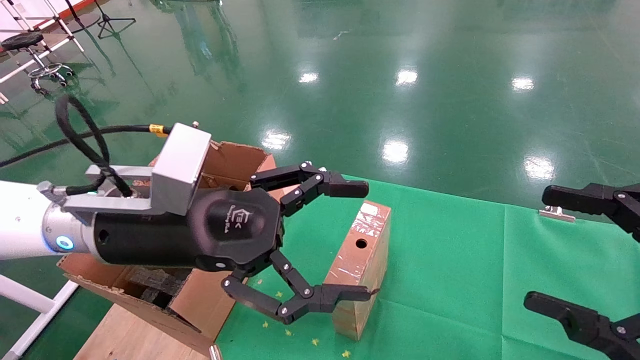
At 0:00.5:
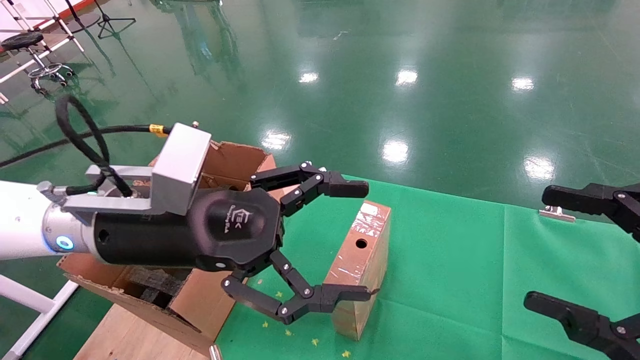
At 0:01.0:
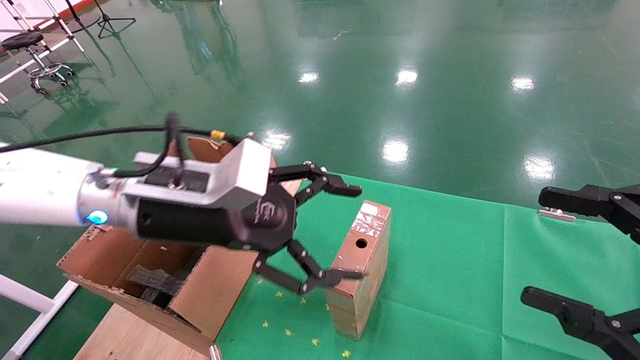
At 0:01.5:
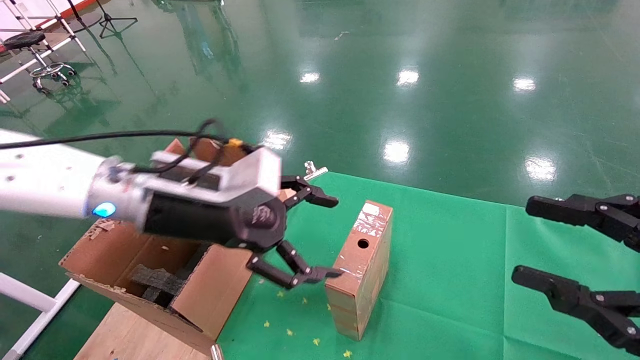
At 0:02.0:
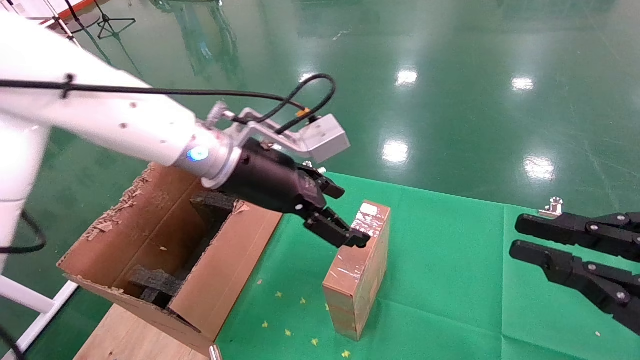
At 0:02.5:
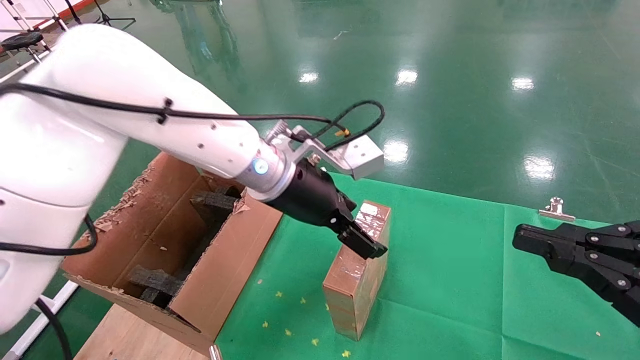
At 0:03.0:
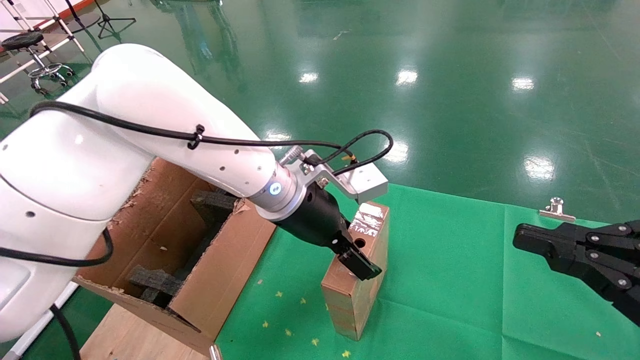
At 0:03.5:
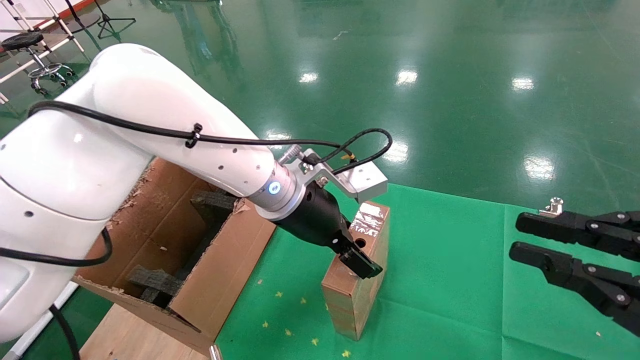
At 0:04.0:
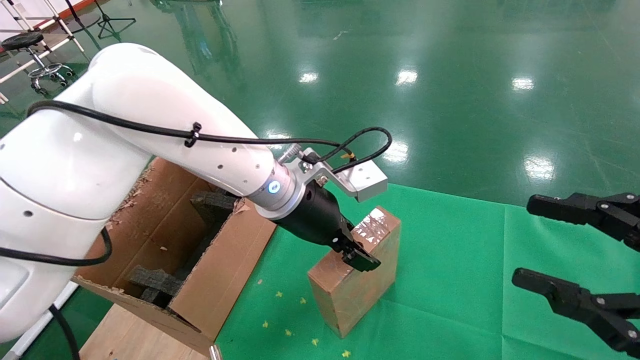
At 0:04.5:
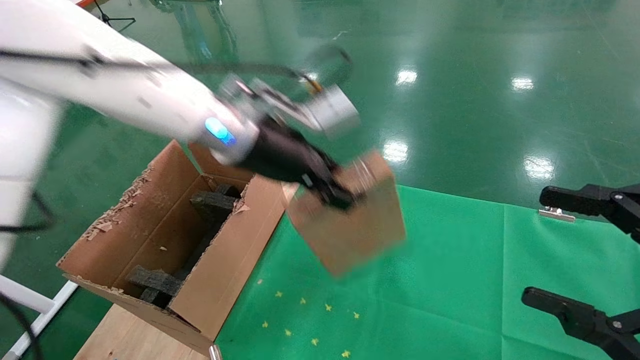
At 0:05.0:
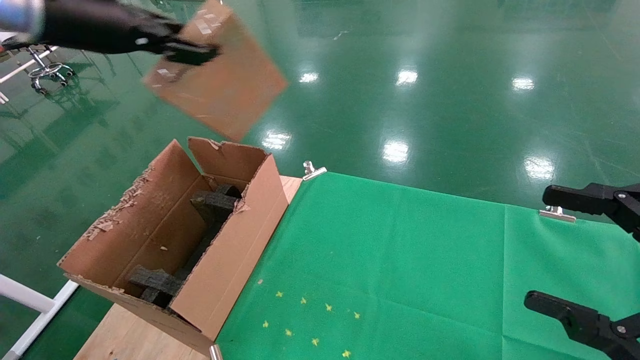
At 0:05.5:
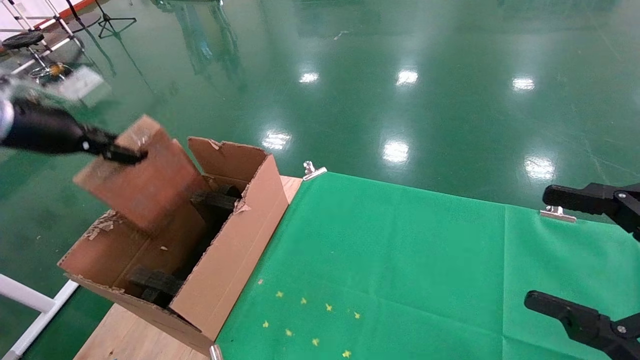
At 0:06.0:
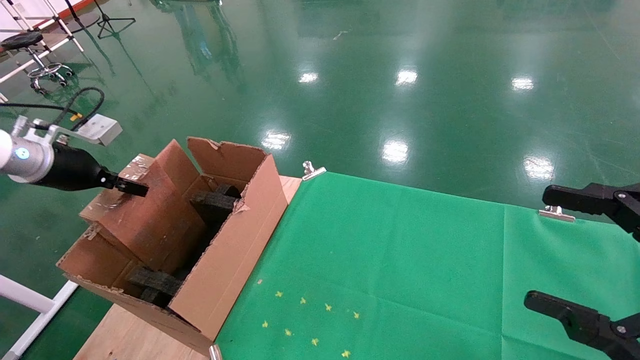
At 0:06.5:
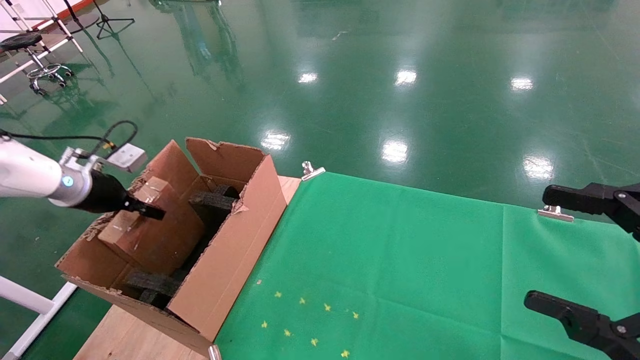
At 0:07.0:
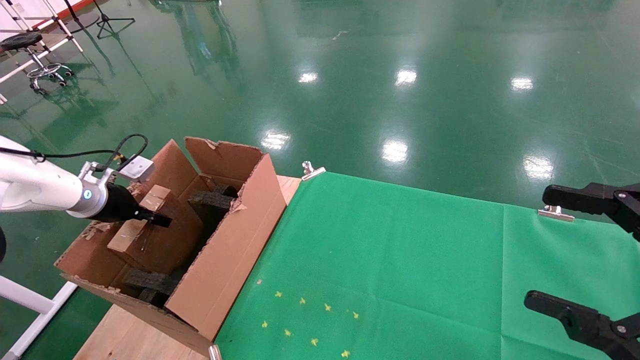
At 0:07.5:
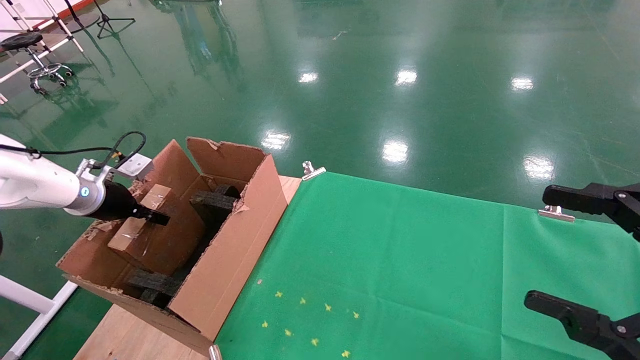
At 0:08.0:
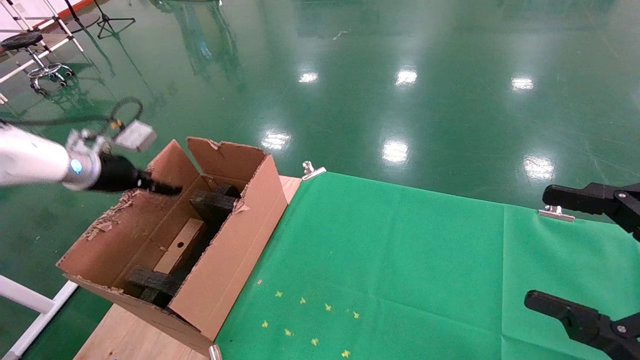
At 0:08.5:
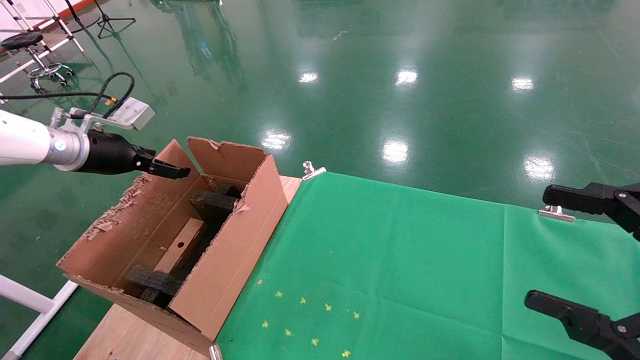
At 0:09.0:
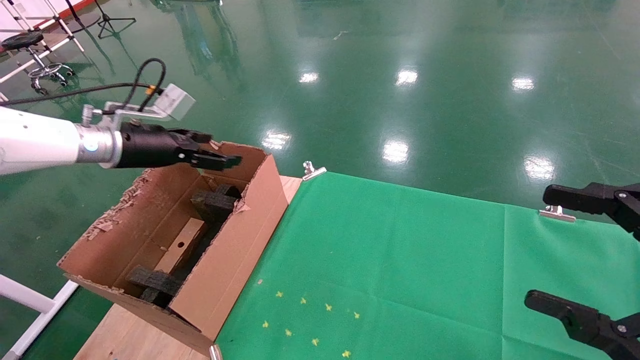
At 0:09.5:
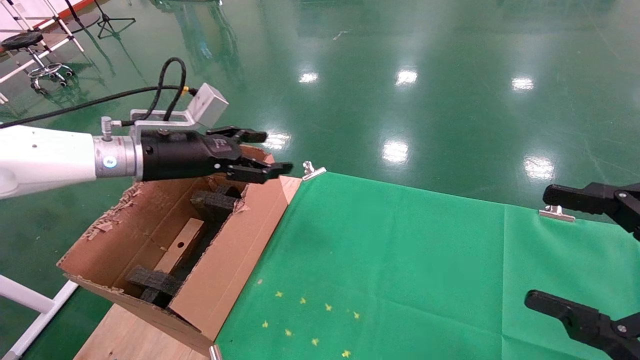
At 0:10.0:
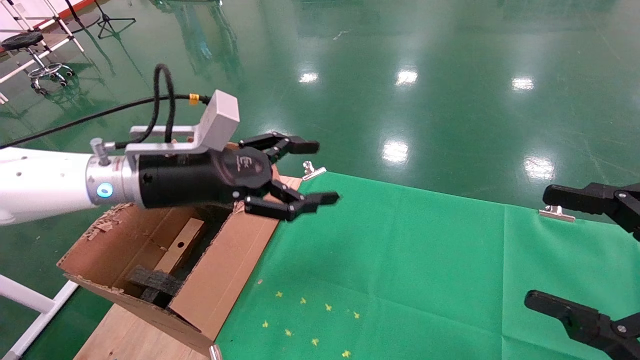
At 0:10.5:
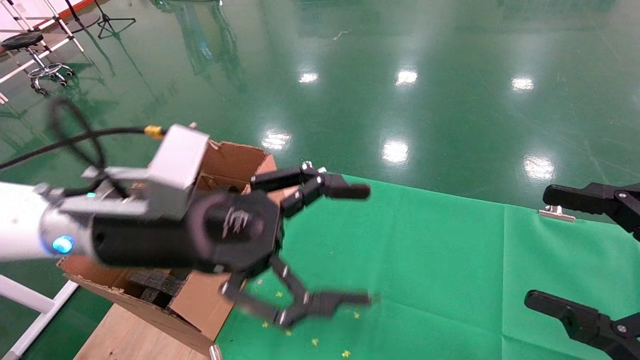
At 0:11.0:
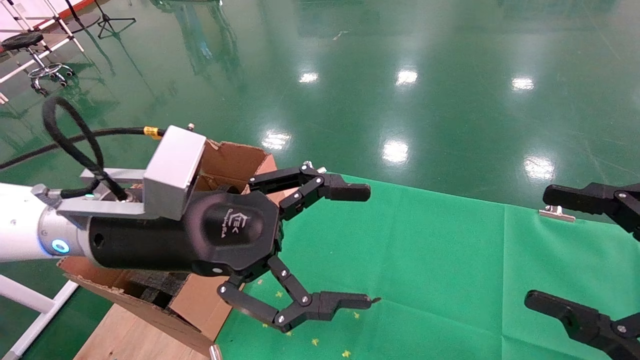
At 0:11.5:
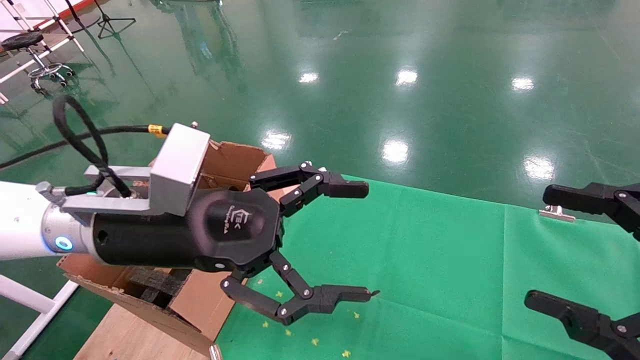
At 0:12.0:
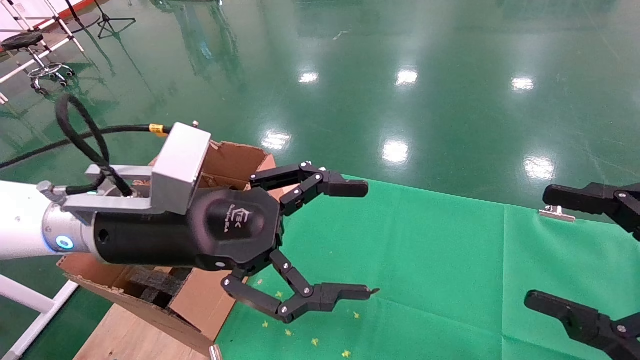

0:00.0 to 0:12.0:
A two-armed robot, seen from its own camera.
Task of the whole recording: using a robotic arm to pick up a cardboard box and palace it the carton.
Step, 0:01.0 to 0:04.0: Pick up the mouse and the power cord paper box.
Step, 0:04.5 to 0:07.5: Place the mouse and the power cord paper box into the container.
0:00.0 to 0:02.0: The left gripper heads forward and to the right, covering some 10 cm. Meanwhile the right gripper closes its fingers.
0:02.0 to 0:04.0: The left gripper goes roughly 5 cm to the right.
0:04.0 to 0:06.0: The right gripper opens. Meanwhile the left gripper goes some 40 cm to the left, and closes its fingers.
0:06.0 to 0:08.0: The left gripper goes downward and returns, roughly 10 cm each way, and opens.
0:08.0 to 0:10.0: The left gripper travels to the right by roughly 25 cm, and opens its fingers.
0:10.0 to 0:12.0: The left gripper shifts roughly 10 cm backward.

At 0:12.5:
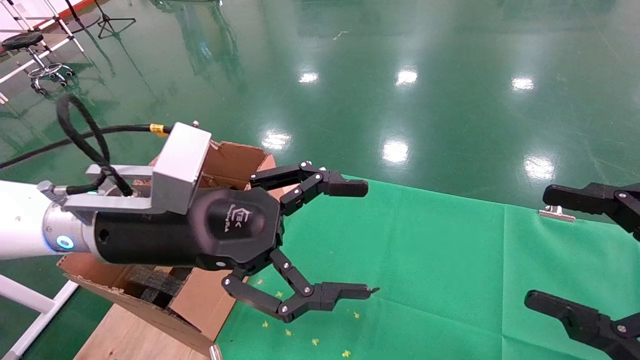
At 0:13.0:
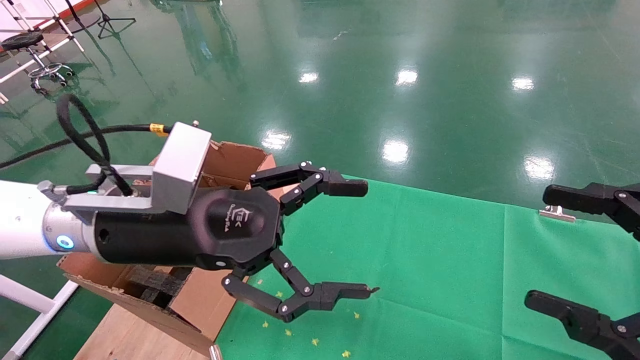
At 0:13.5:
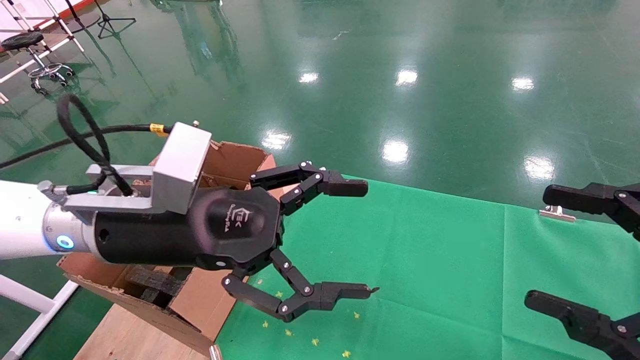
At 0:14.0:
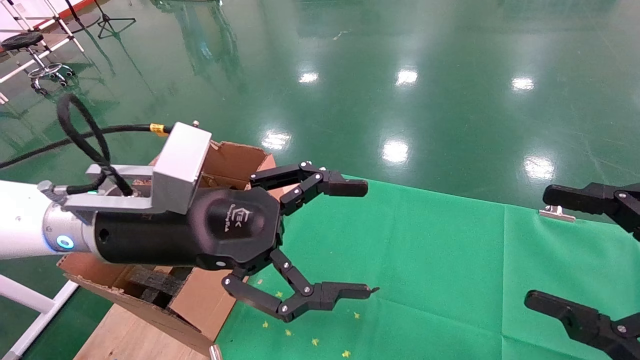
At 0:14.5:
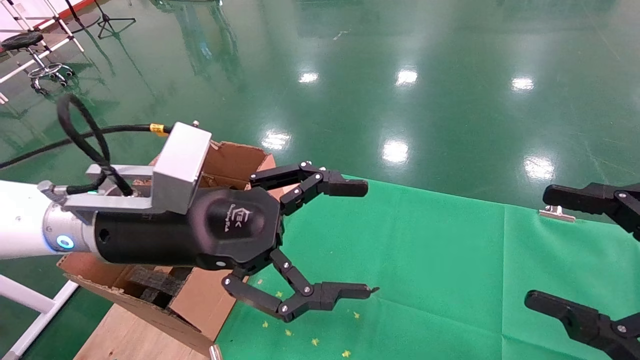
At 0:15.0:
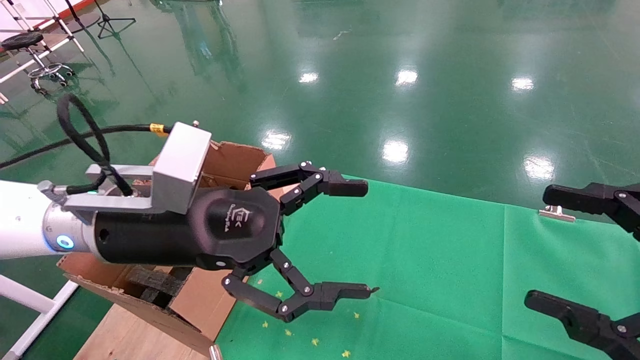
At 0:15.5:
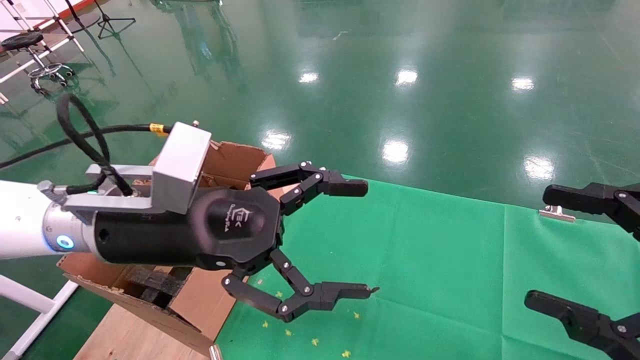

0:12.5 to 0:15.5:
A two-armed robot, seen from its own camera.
Task of the whole recording: using a robotic arm to pick up a cardboard box and palace it the carton.
0:12.5 to 0:15.5: Both grippers stay about where they are.
